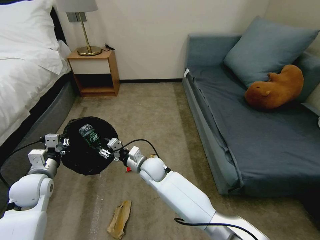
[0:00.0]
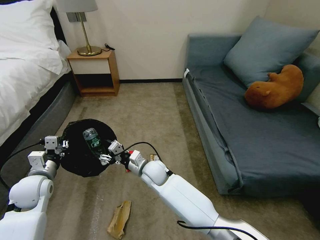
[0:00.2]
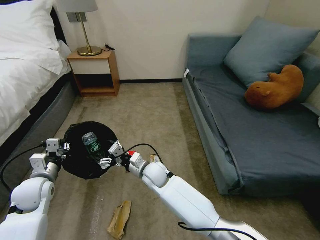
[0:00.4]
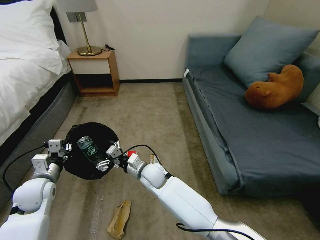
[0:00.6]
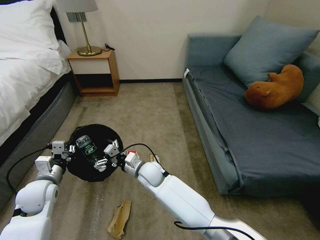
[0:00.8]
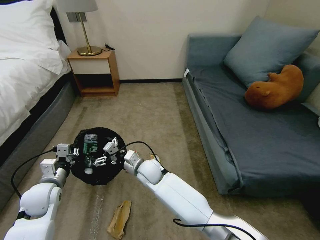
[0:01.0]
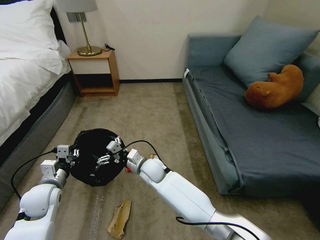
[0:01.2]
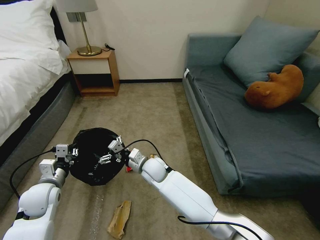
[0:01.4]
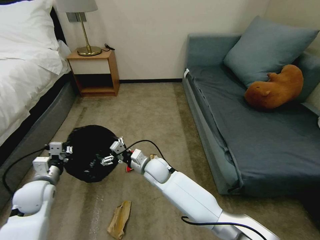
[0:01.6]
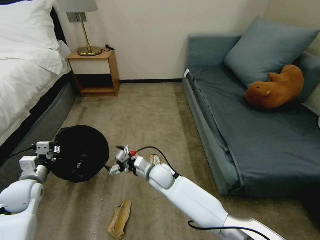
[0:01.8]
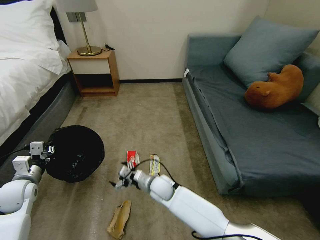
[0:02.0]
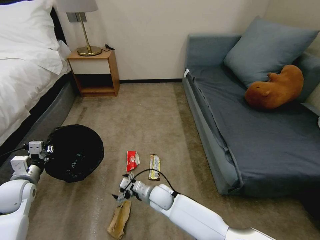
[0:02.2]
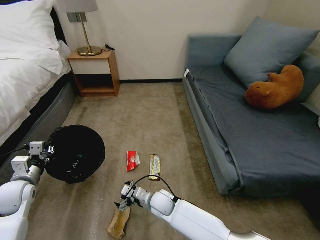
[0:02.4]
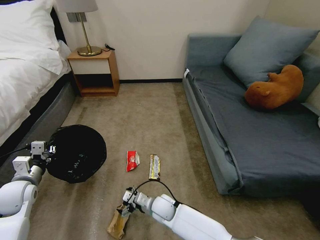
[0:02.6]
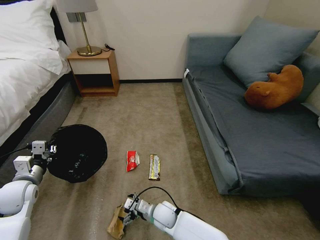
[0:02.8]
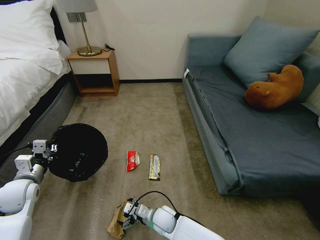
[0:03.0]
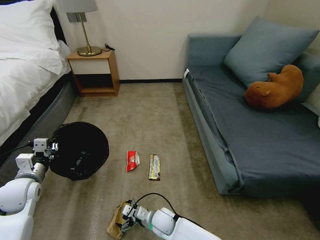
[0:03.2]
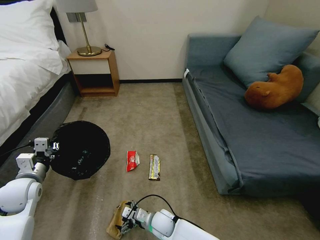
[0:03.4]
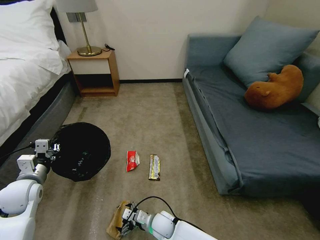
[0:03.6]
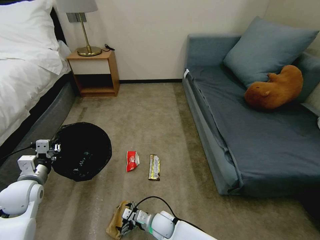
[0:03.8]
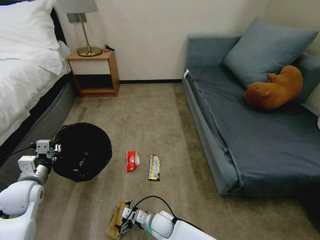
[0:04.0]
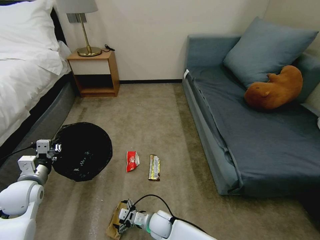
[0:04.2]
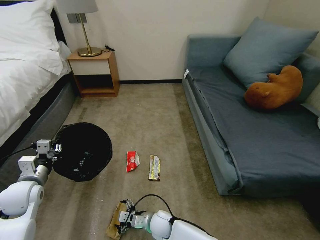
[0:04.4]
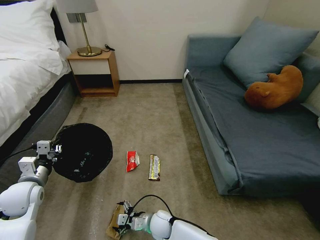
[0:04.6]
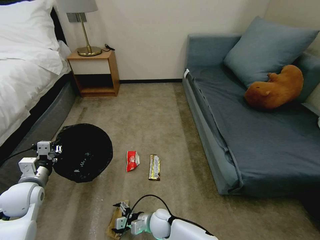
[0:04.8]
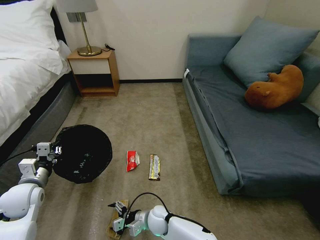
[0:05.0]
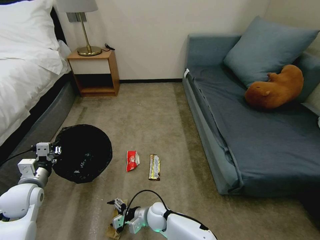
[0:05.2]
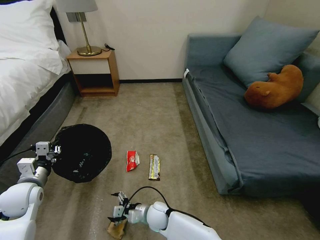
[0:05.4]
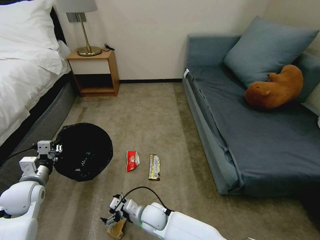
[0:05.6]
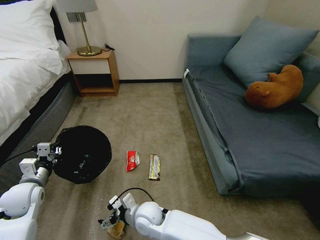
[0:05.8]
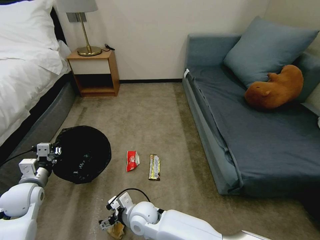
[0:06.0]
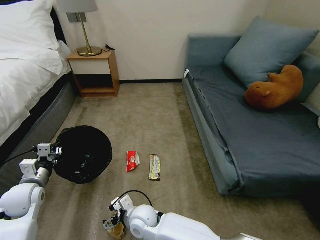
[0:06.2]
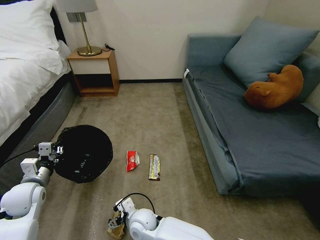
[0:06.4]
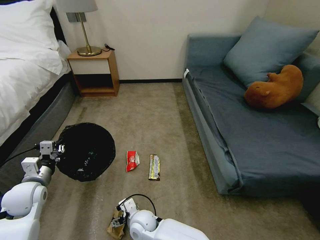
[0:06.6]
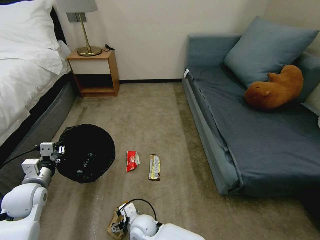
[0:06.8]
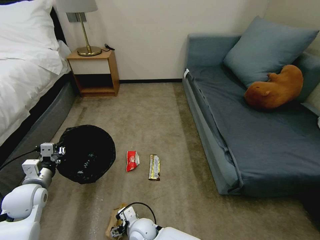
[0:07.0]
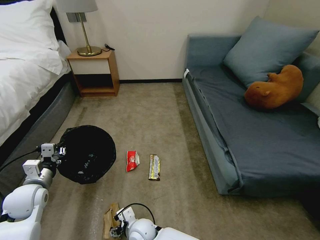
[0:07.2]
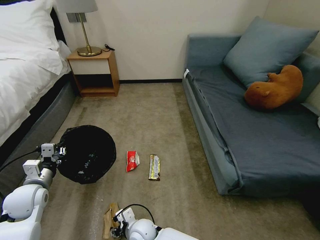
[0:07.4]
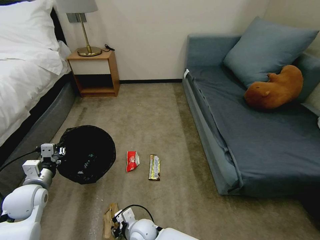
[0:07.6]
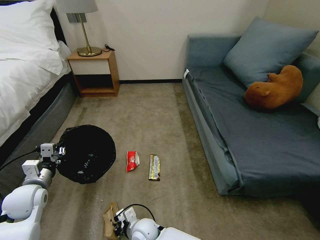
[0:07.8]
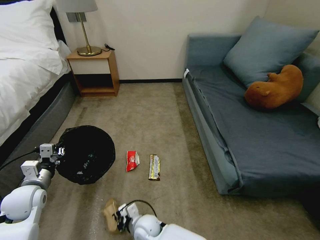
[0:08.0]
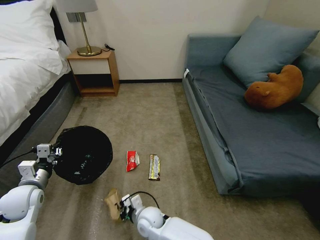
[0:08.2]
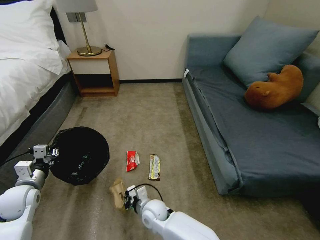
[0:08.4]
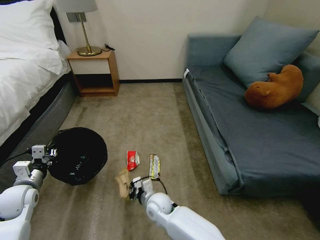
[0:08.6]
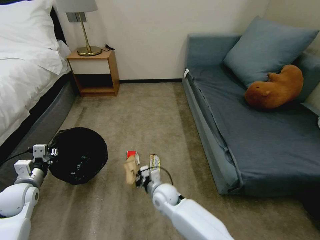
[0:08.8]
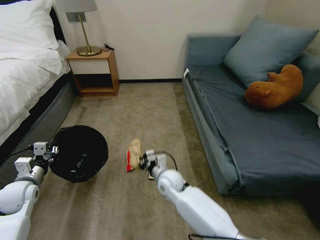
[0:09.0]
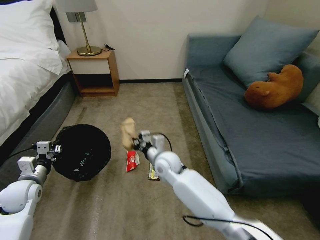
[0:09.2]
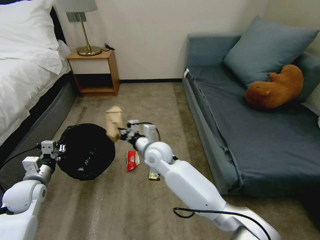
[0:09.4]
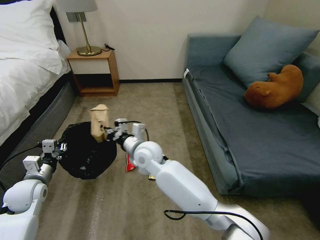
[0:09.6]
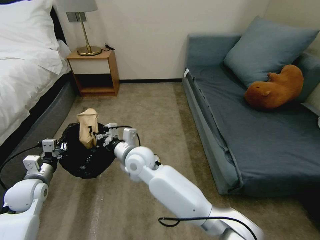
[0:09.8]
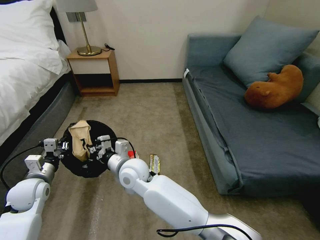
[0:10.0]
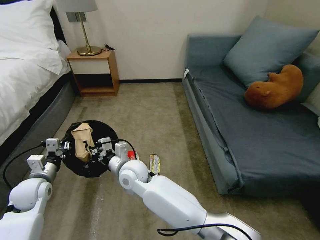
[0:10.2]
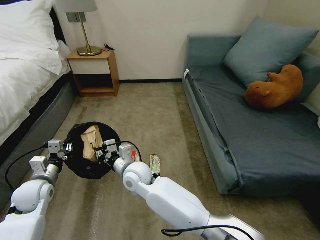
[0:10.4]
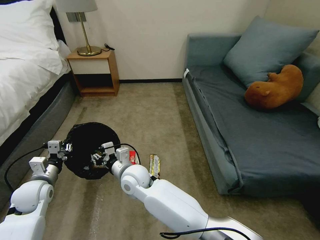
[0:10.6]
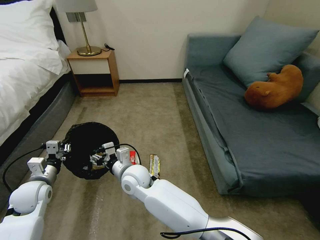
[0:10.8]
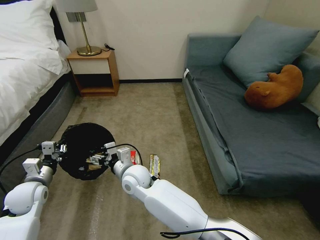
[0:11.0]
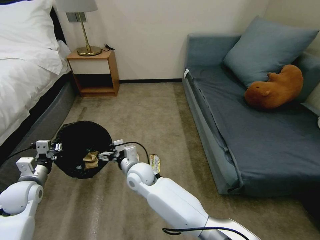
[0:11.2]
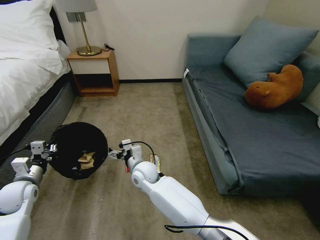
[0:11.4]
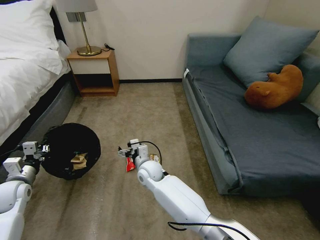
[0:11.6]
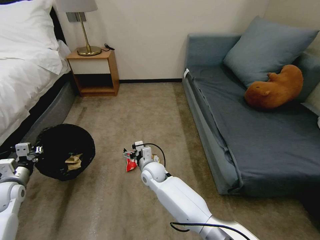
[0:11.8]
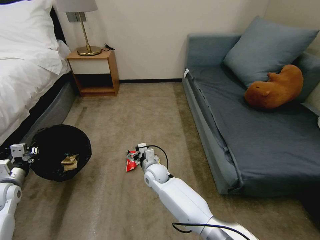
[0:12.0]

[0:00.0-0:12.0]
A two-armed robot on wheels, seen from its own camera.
Task of the whole recording: Pick up the trash bin, then pick up the garbage on the floor and place it into the trash bin.
0:00.0 to 0:01.6: The right gripper opens up.
0:01.6 to 0:03.0: The right gripper heads downward and backward, covering approximately 20 cm.
0:03.0 to 0:04.4: The grippers make only small movements.
0:04.4 to 0:06.0: The right gripper moves upward and to the left, some 15 cm.
0:06.0 to 0:07.6: The right gripper shifts about 10 cm downward, and closes up.
0:07.6 to 0:09.0: The right gripper goes approximately 20 cm forward, upward and to the right, and closes.
0:09.0 to 0:10.4: The right gripper shifts roughly 15 cm to the left and upward.
0:10.4 to 0:12.0: The right gripper moves downward, to the right and forward, about 15 cm, and opens its fingers. Meanwhile the left gripper heads to the left, covering some 10 cm.

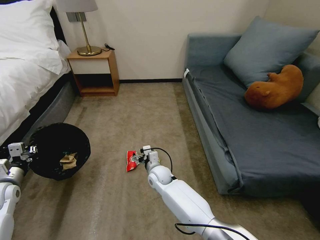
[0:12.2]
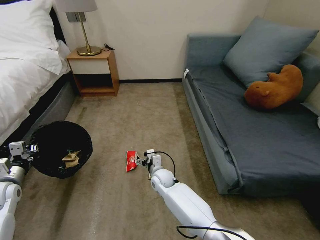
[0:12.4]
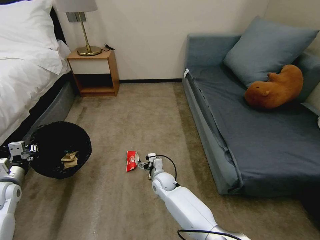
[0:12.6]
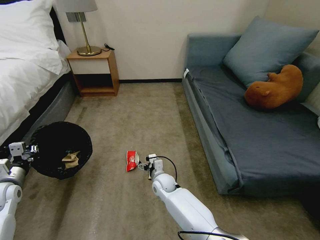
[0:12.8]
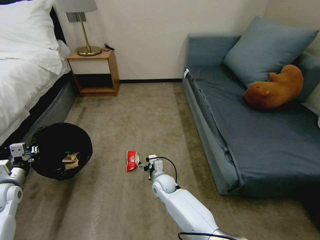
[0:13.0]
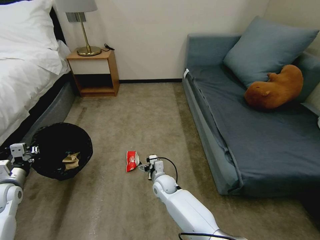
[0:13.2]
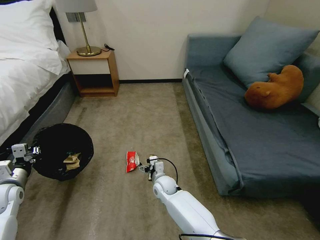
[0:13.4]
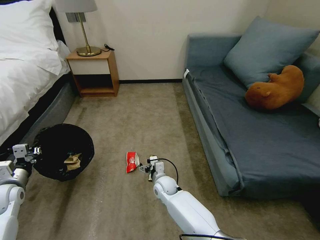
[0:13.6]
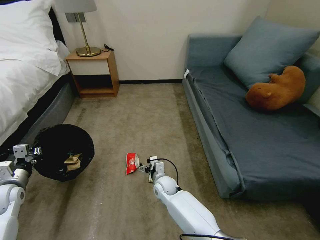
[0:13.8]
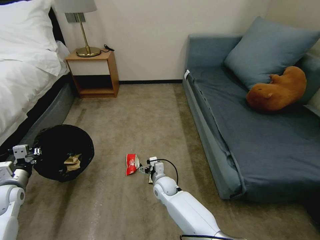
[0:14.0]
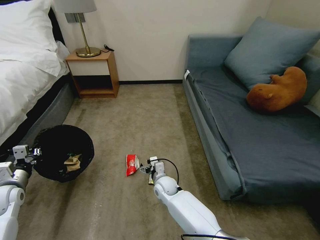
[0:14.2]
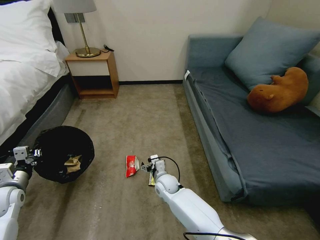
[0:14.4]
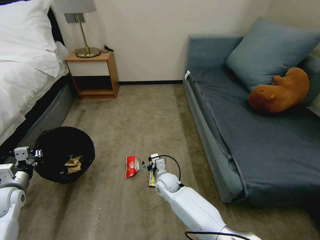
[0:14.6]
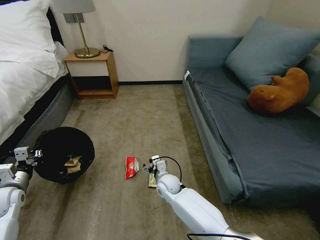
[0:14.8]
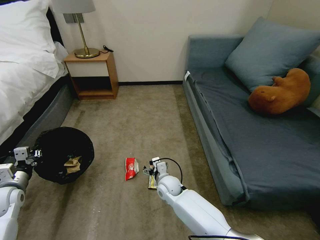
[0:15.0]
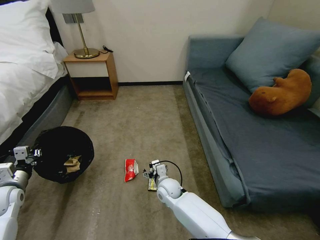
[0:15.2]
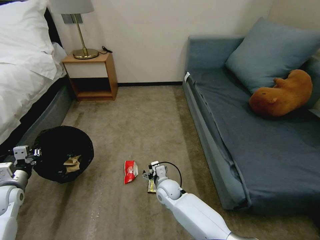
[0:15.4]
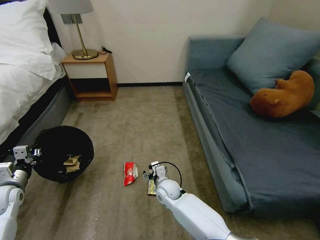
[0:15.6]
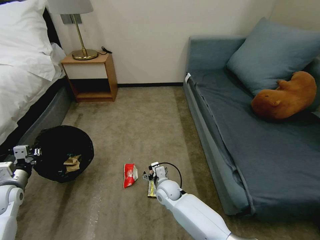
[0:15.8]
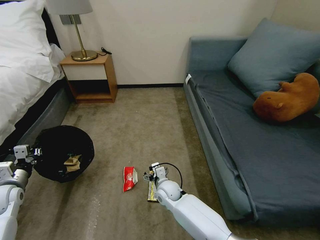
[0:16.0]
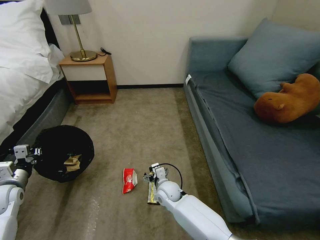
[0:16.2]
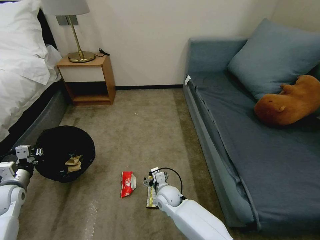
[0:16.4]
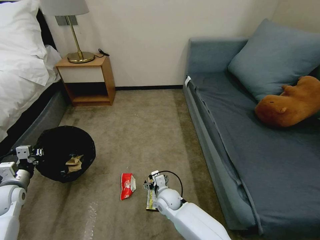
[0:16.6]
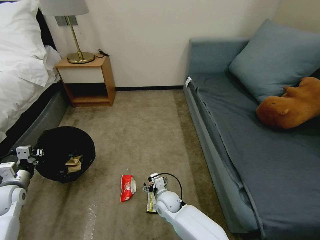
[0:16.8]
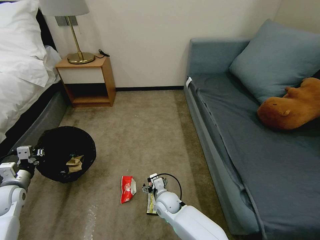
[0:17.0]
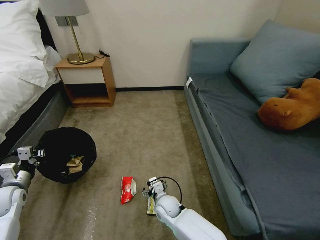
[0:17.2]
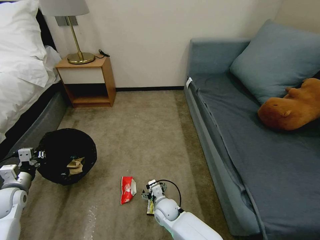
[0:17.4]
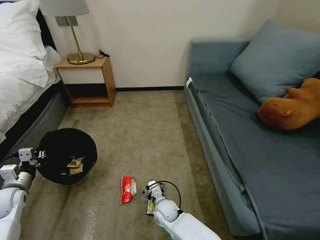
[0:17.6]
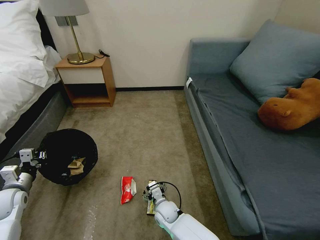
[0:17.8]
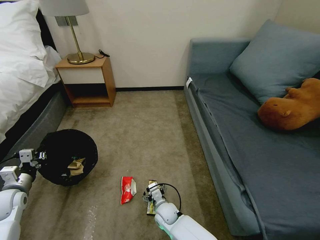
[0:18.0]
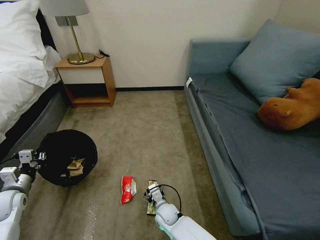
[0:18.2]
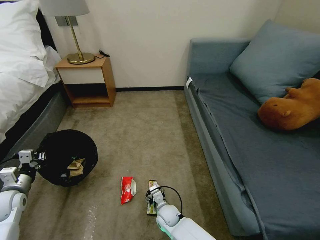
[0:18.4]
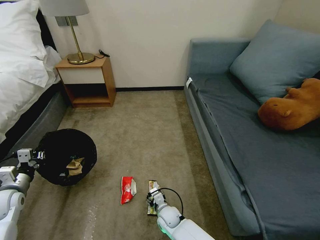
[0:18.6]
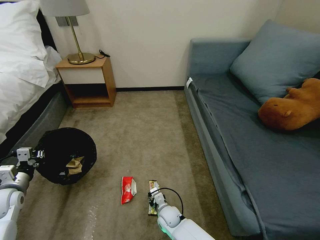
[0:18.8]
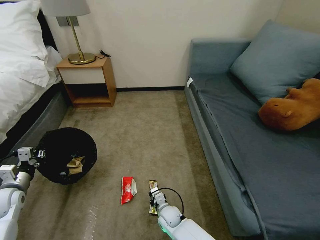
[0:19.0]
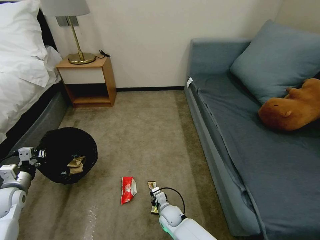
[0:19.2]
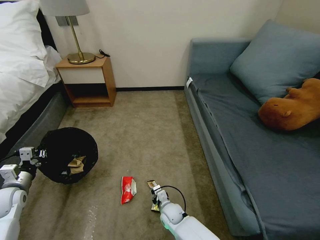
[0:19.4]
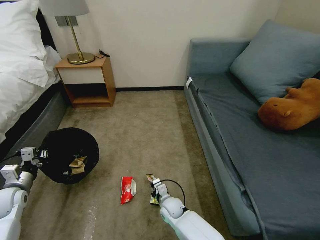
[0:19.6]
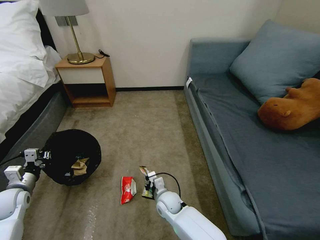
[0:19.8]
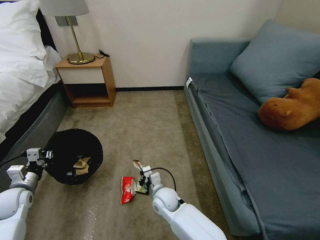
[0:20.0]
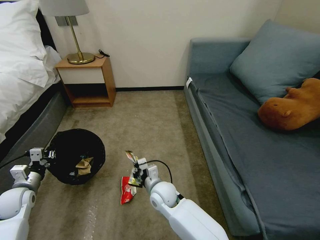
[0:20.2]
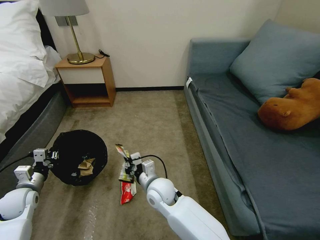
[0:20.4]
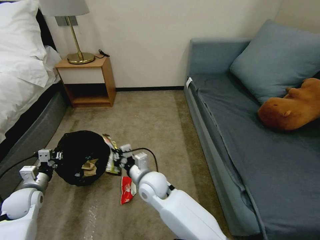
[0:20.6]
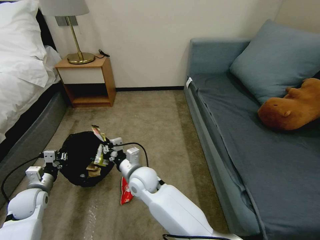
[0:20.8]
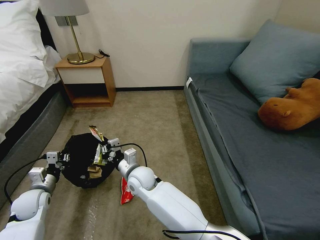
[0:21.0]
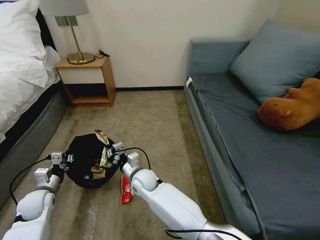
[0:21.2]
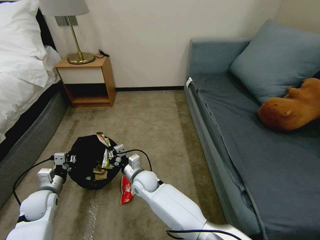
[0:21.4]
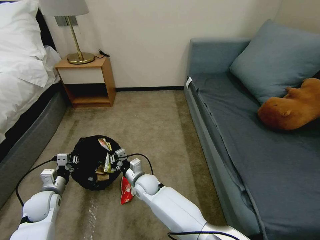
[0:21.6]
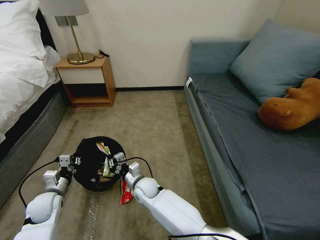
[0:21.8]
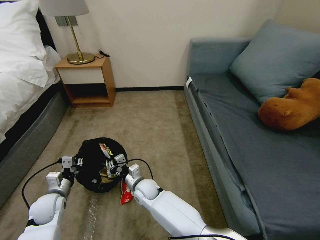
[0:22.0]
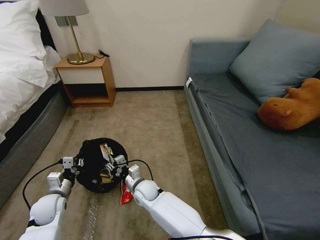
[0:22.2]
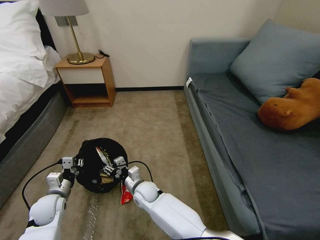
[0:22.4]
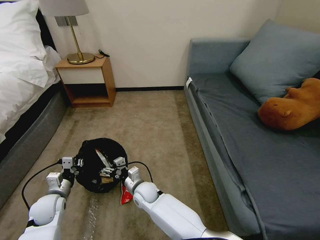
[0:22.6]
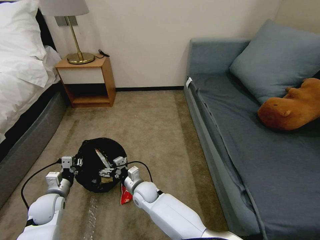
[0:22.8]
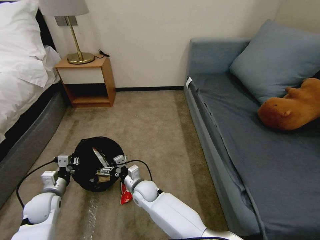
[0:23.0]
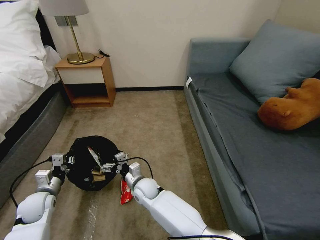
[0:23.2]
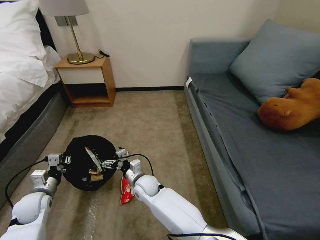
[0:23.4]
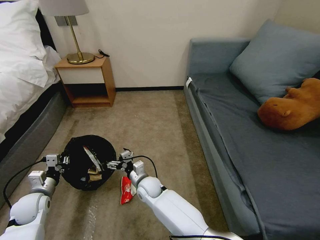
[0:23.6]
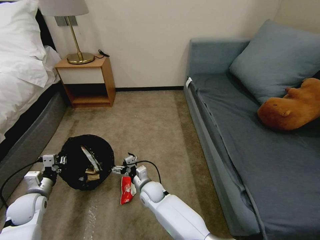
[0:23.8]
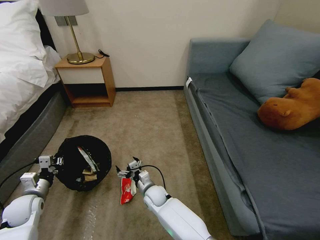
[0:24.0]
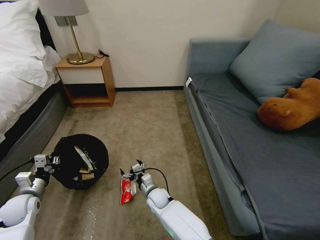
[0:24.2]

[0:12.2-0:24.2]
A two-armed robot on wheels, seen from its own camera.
Task of the whole recording: Pick up the trash bin, then pick up the garbage on the floor and place it into the trash bin.
0:12.2 to 0:13.8: The right gripper changes place by about 5 cm.
0:13.8 to 0:15.2: There are only small adjustments of the grippers.
0:16.6 to 0:18.2: The right gripper goes some 5 cm downward.
0:18.2 to 0:19.8: The right gripper moves upward, some 5 cm, and closes its fingers.
0:19.8 to 0:21.2: The left gripper moves to the right, roughly 5 cm. The right gripper moves to the left, upward and forward, about 15 cm.
0:21.2 to 0:22.6: The right gripper heads downward, covering roughly 5 cm, and opens up.
0:22.6 to 0:24.2: The left gripper moves to the left, some 10 cm; the right gripper moves downward and to the right, about 10 cm.
